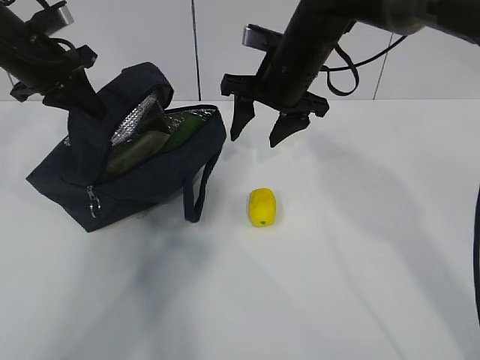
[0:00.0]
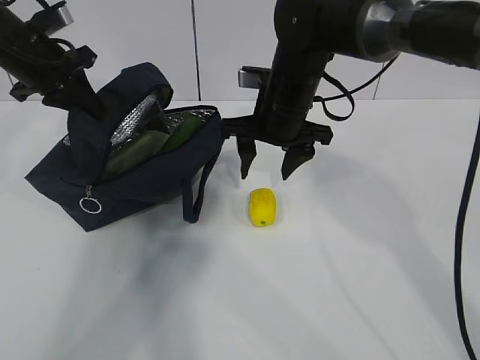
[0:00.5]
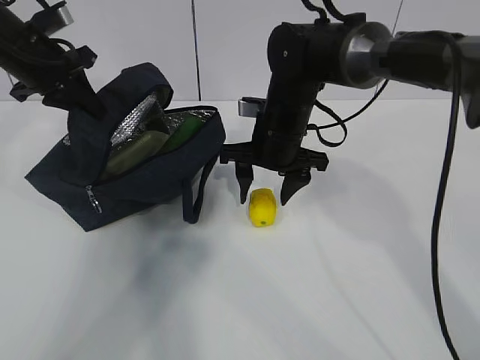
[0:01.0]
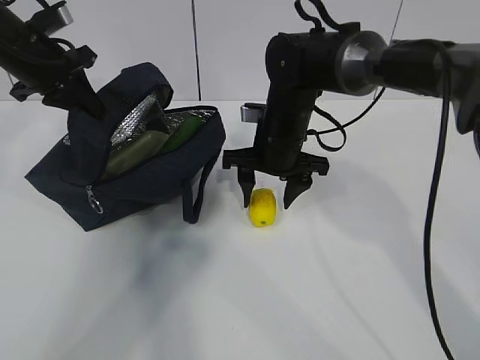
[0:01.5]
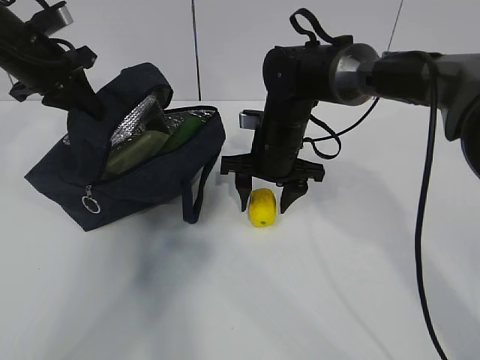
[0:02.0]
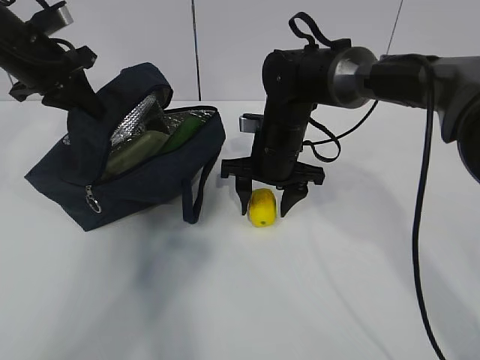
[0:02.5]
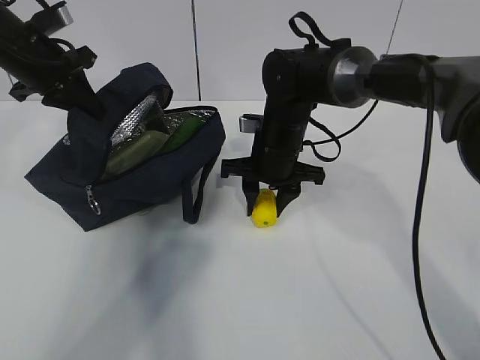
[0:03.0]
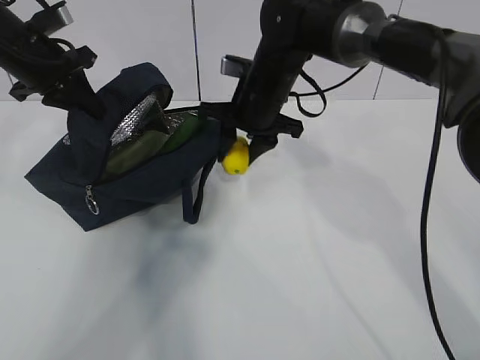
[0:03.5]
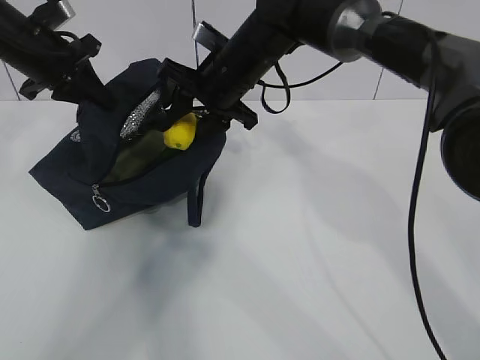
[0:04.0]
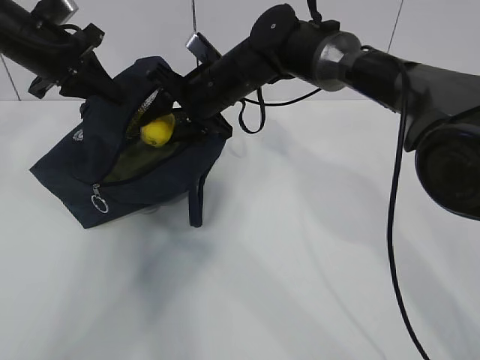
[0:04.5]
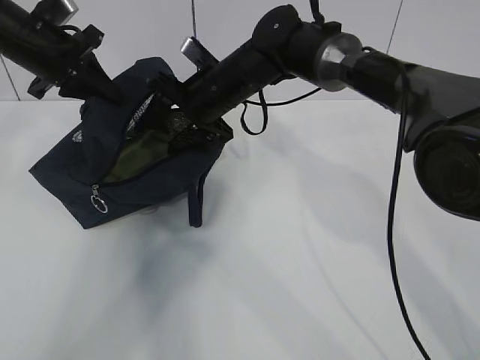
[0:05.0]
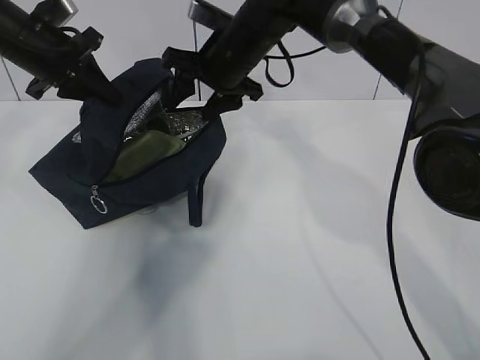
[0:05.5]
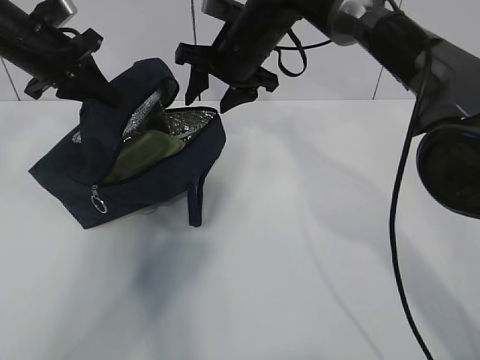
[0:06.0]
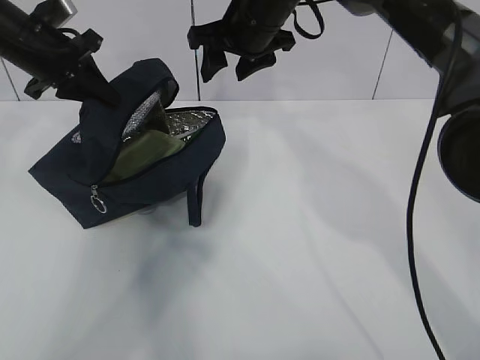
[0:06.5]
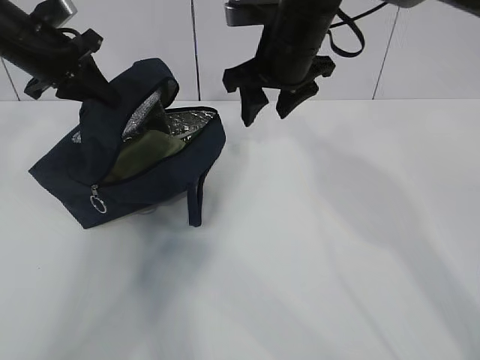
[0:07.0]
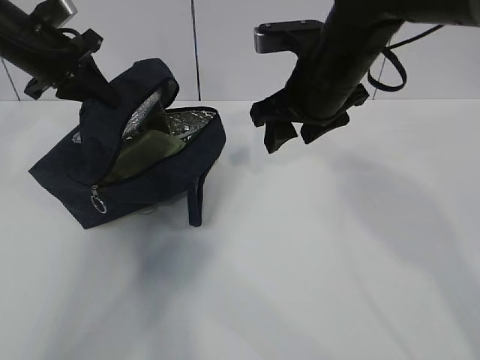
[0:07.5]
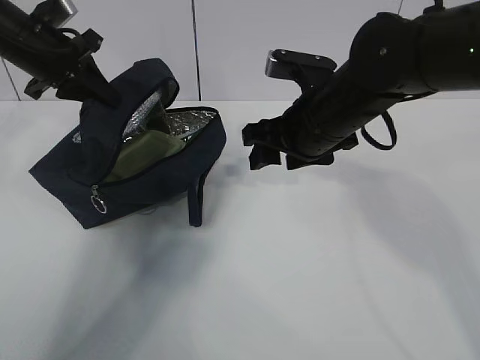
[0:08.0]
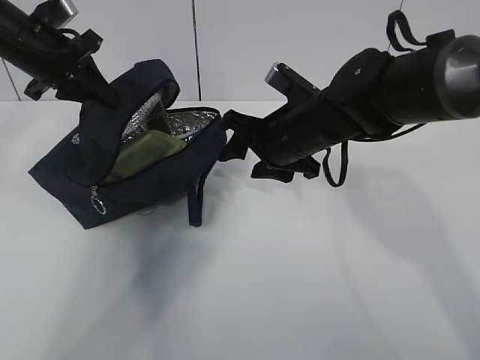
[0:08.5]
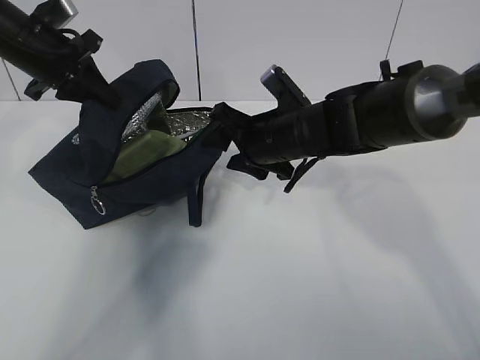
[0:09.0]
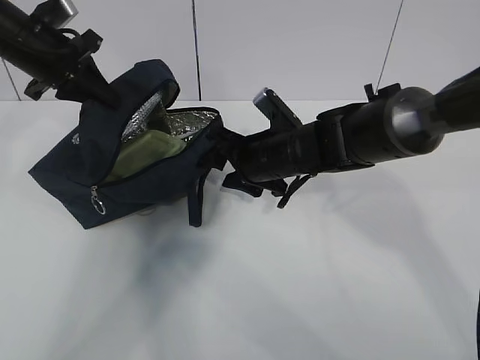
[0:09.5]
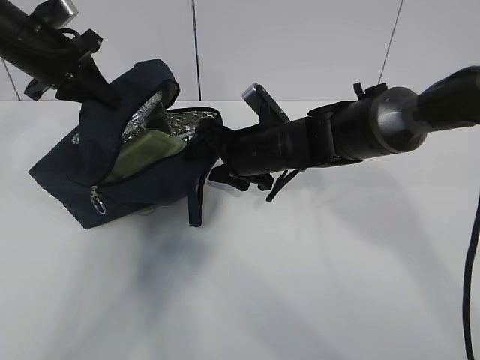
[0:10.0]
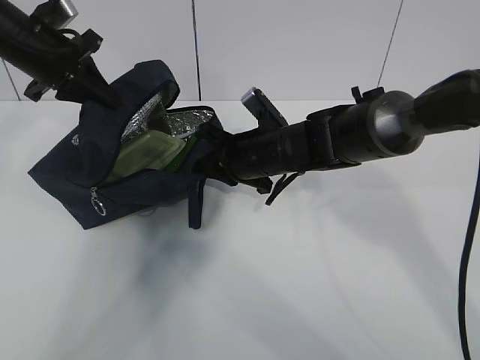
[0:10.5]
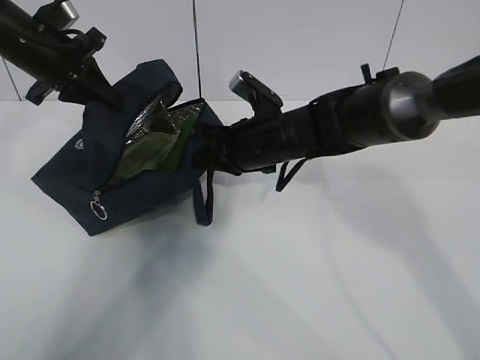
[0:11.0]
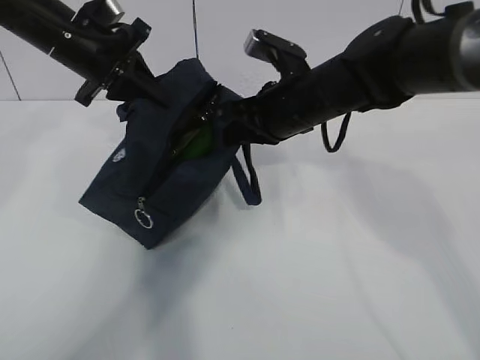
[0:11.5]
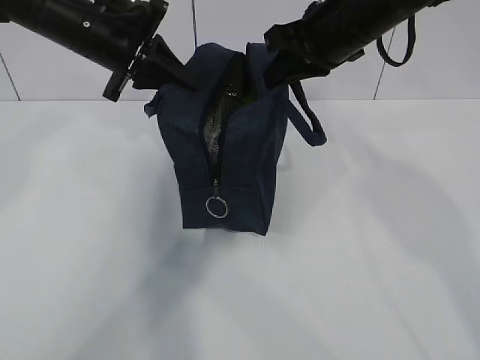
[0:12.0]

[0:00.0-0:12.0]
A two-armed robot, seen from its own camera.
Step, 0:00.0 to 0:03.5: Grab the lunch bag with your right hand.
Step, 0:04.0 to 0:07.0: Stand the lunch bag upright with your right hand.
0:00.0 to 0:02.0: The right gripper moves downward, about 10 cm.
0:02.0 to 0:04.0: The right gripper travels upward and to the left by roughly 10 cm, and closes up.
0:04.0 to 0:06.0: The grippers stay close to where they were, moving slightly.
0:06.0 to 0:08.0: The right gripper travels backward and to the right by roughly 15 cm.
0:08.0 to 0:10.0: The right gripper goes some 10 cm downward, forward and to the left.
0:10.0 to 0:12.0: The left gripper goes about 10 cm to the right. Meanwhile the right gripper shifts some 20 cm upward and to the right, and closes.

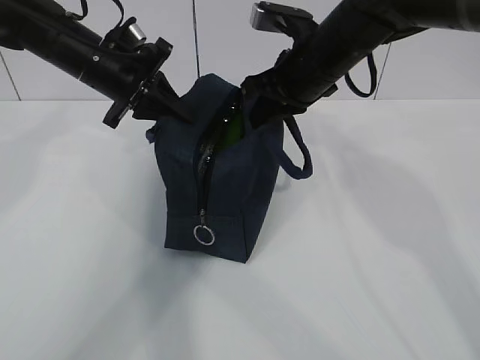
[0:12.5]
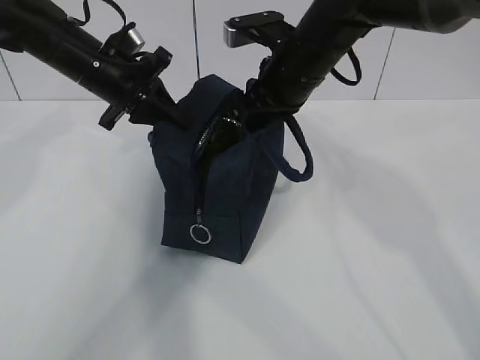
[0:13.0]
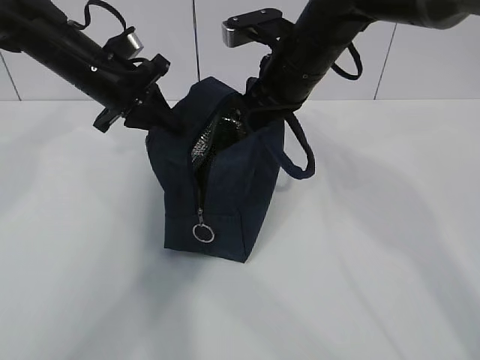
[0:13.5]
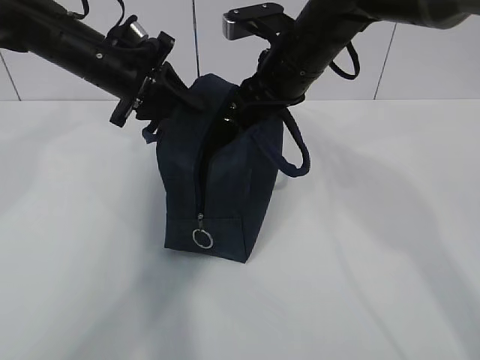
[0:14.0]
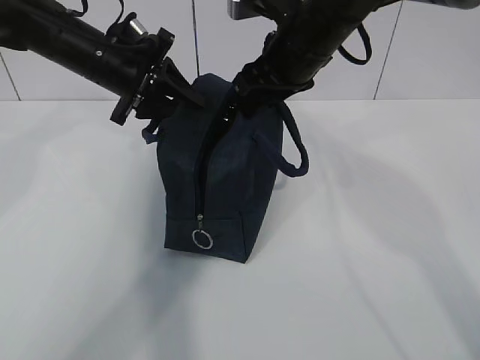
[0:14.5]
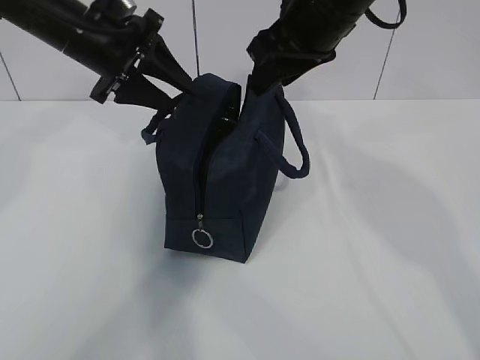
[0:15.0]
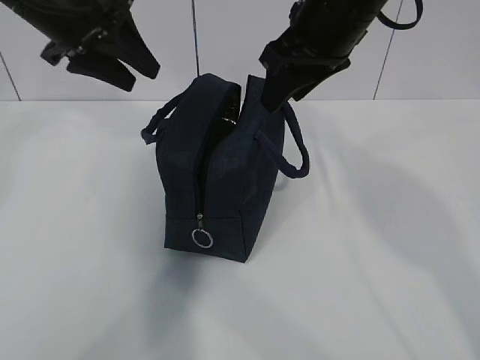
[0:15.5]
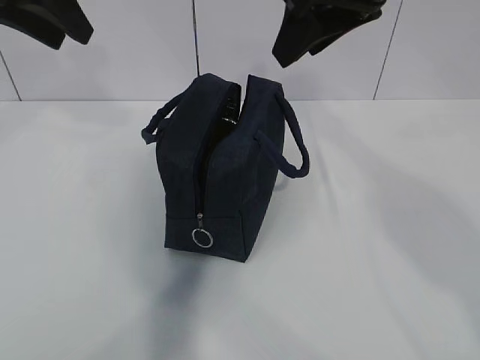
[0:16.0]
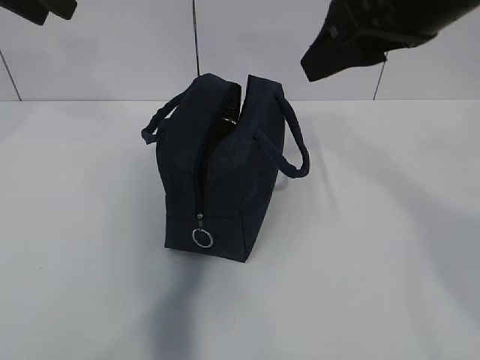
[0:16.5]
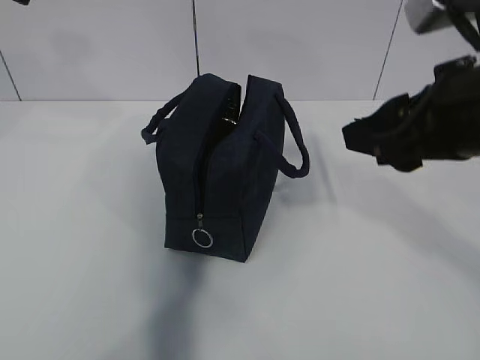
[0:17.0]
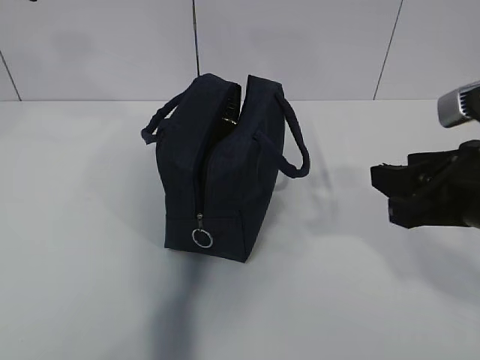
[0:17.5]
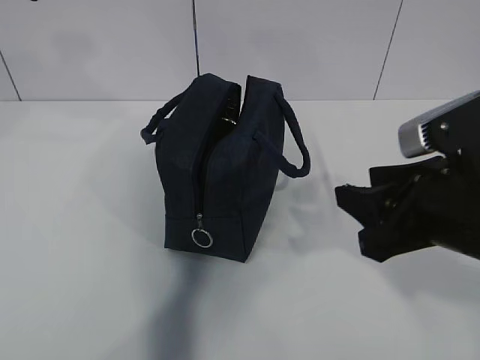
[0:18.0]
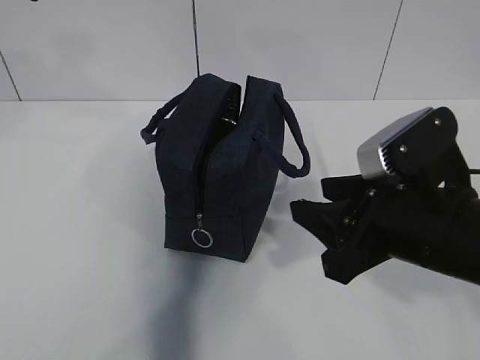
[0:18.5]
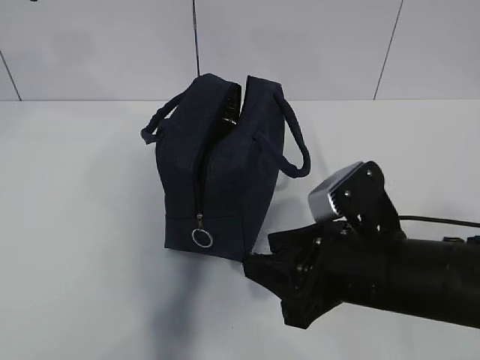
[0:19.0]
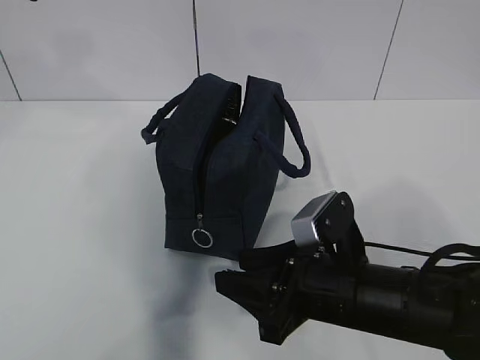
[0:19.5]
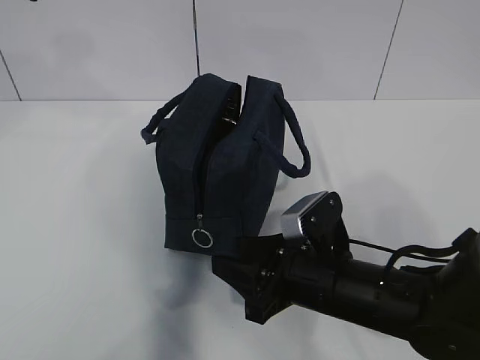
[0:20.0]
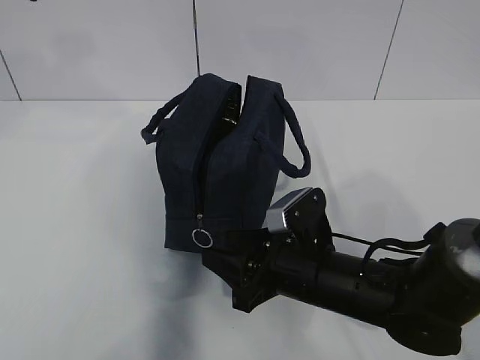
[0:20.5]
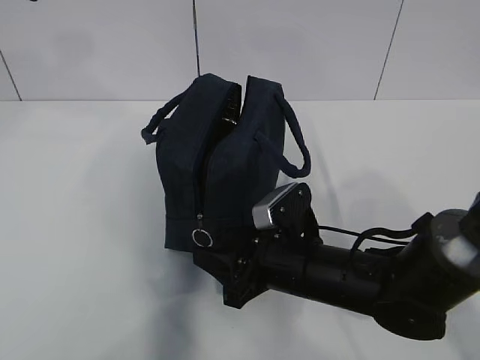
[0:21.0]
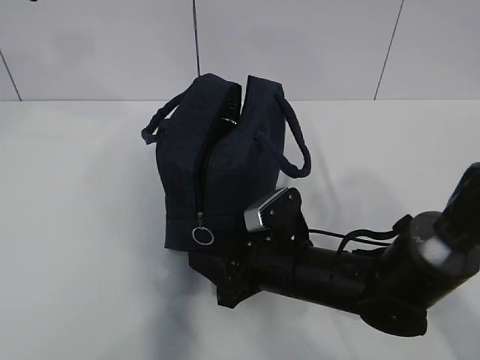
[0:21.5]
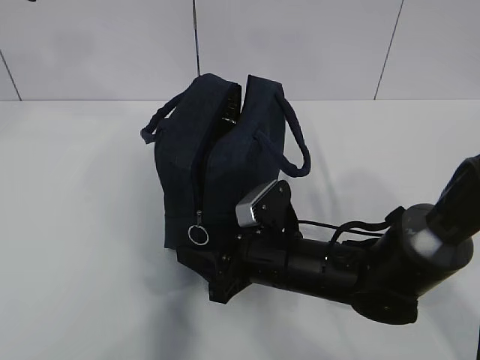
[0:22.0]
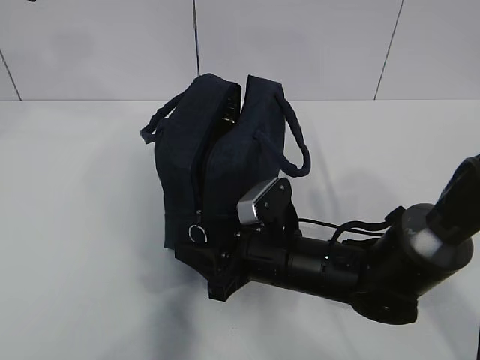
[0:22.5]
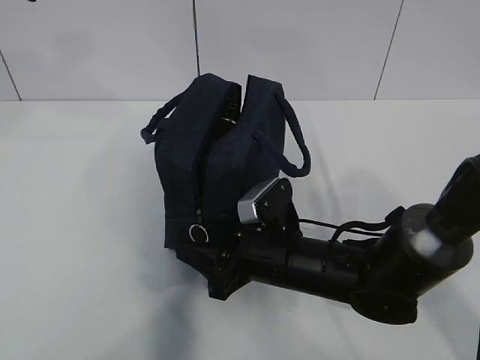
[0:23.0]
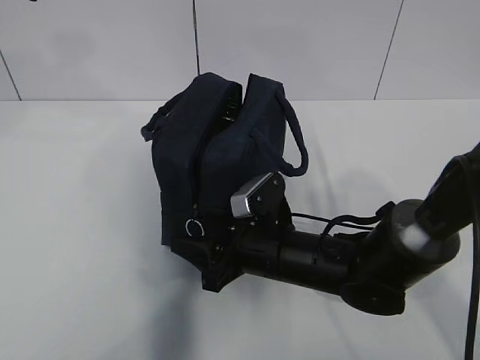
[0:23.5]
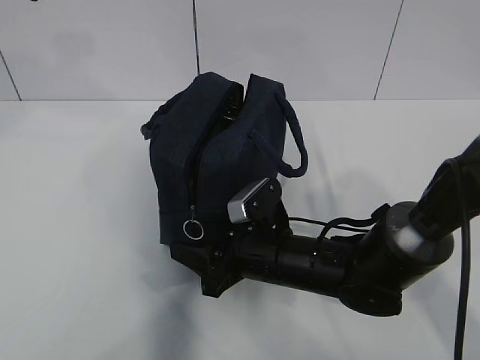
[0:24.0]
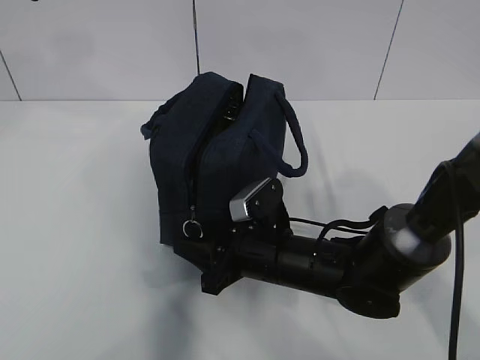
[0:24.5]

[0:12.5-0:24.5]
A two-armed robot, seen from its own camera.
Step, 0:12.5 to 0:22.5: Grab the lunch bag with your left hand.
0:12.5 to 0:14.5: The right gripper opens; the left gripper opens up.
0:14.5 to 0:16.5: The left gripper shifts roughly 20 cm upward and backward; the right gripper moves backward, upward and to the right, approximately 20 cm.
0:16.5 to 0:18.5: The right gripper travels downward and backward by about 20 cm.
0:18.5 to 0:20.5: The right gripper shifts some 15 cm downward, to the left and forward.
0:20.5 to 0:24.5: The grippers make only small movements.

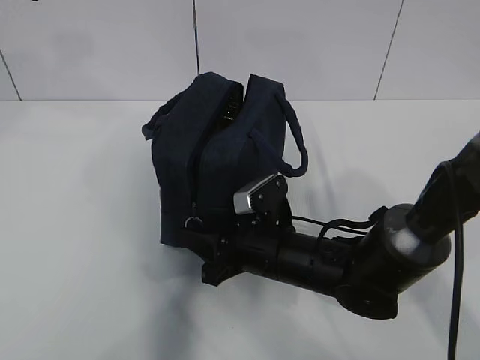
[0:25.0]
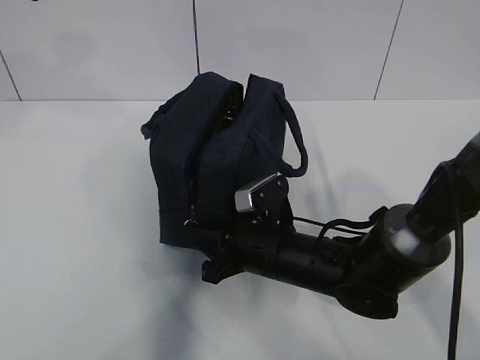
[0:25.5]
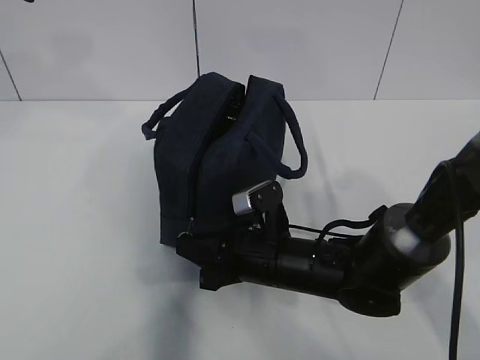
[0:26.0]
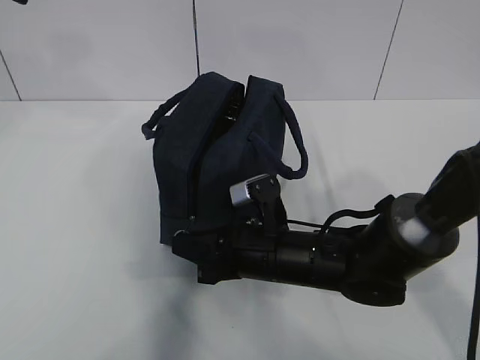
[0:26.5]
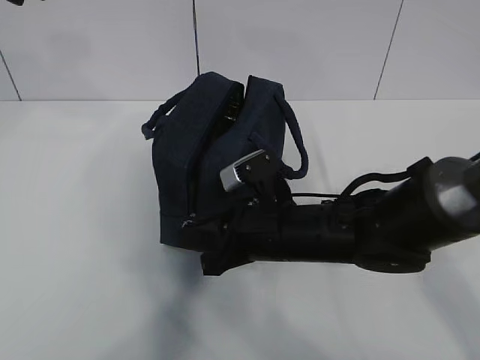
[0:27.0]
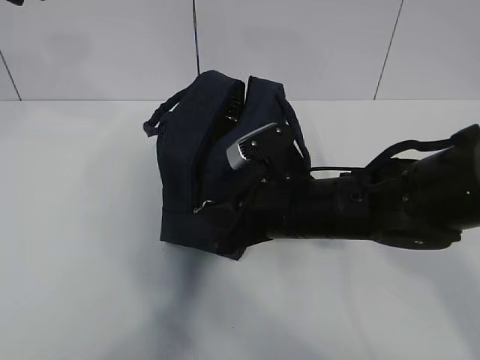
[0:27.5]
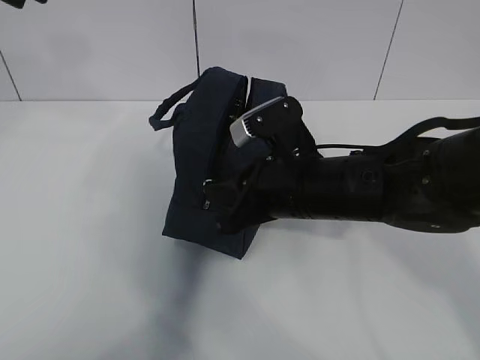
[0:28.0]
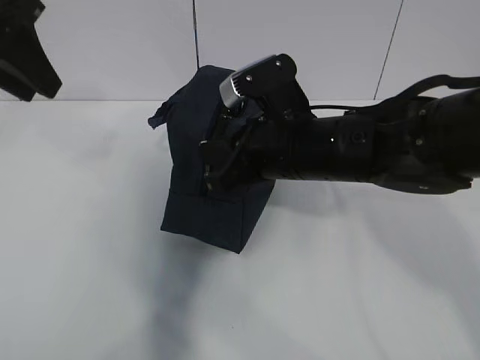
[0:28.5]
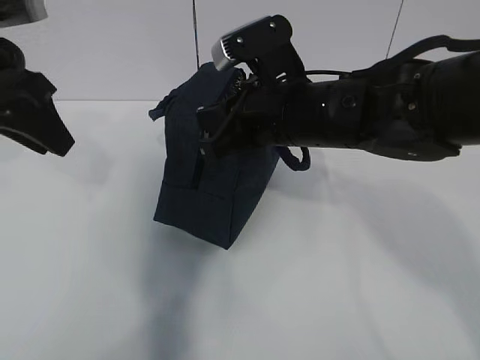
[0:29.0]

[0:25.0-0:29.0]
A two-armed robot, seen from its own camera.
0:25.0 to 0:27.0: The right gripper shifts roughly 5 cm upward, and closes.
0:27.0 to 0:29.0: The right gripper goes approximately 15 cm upward; the left gripper is displaced downward by approximately 10 cm.
